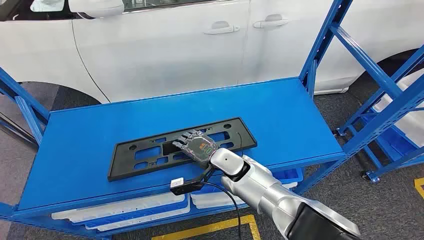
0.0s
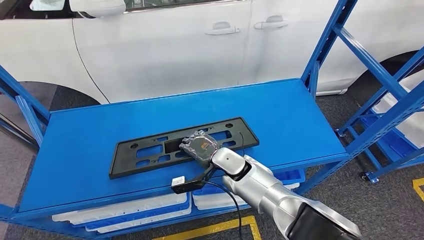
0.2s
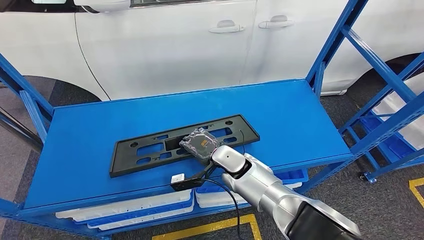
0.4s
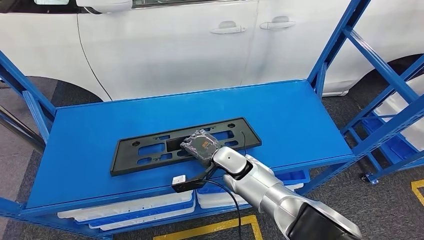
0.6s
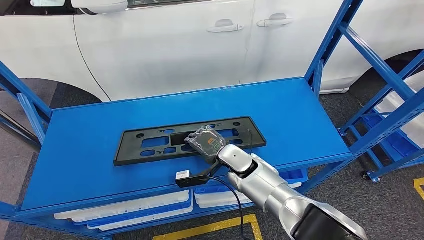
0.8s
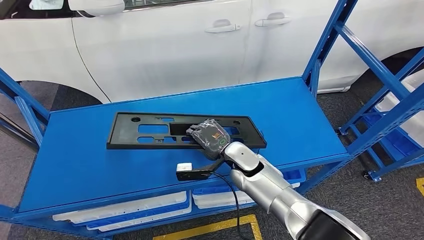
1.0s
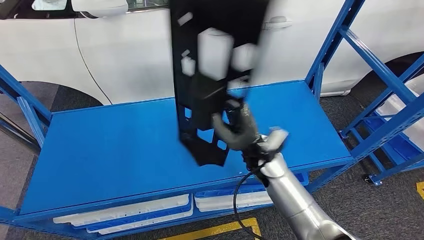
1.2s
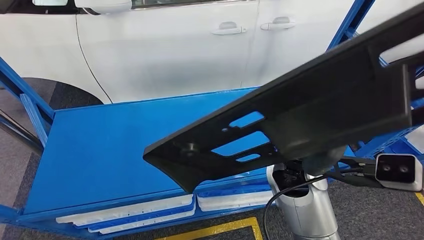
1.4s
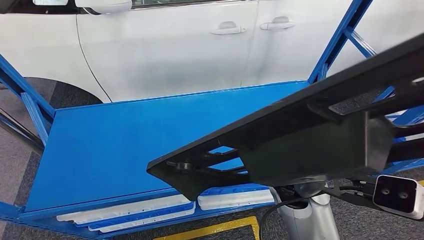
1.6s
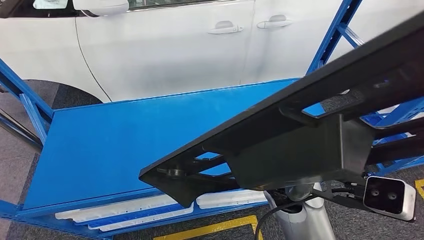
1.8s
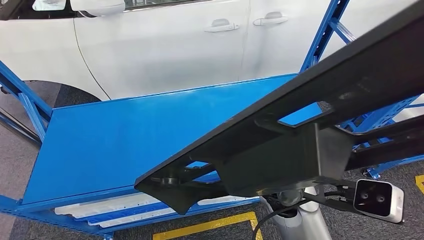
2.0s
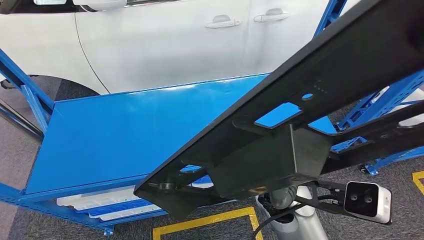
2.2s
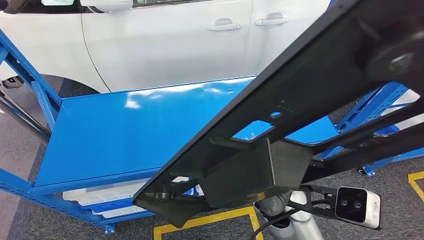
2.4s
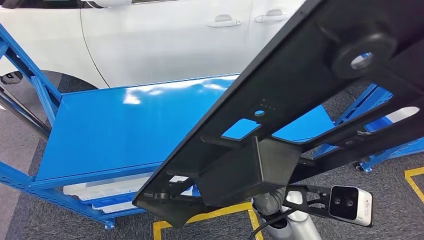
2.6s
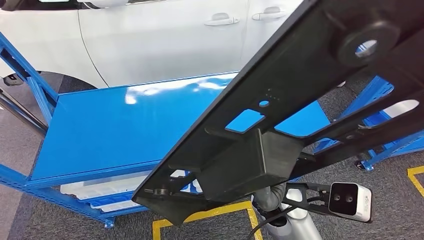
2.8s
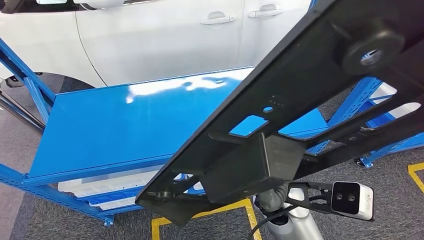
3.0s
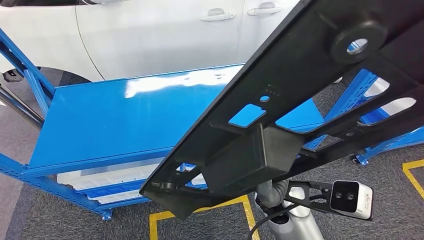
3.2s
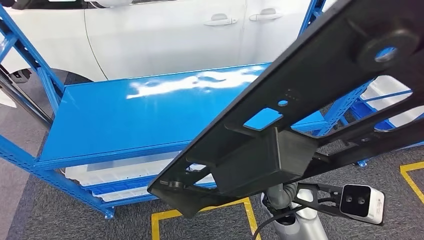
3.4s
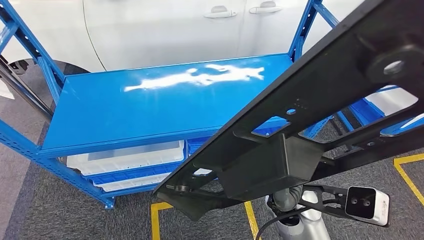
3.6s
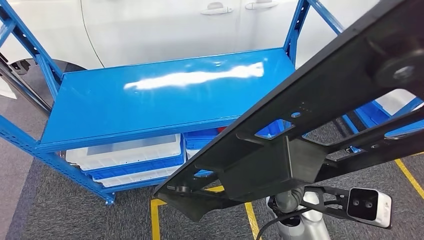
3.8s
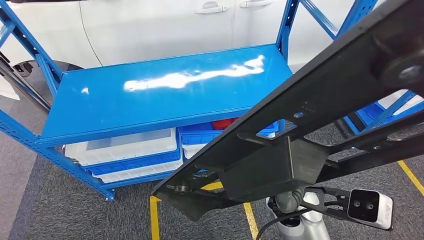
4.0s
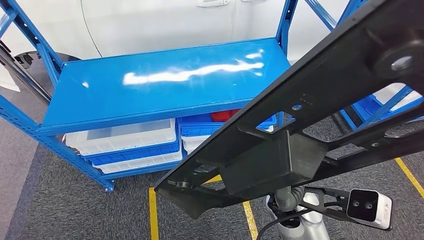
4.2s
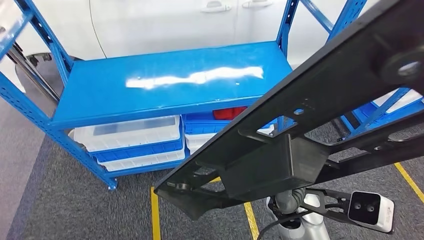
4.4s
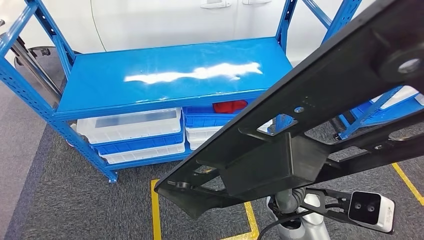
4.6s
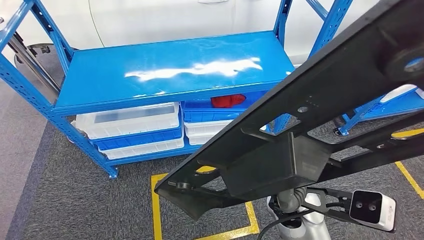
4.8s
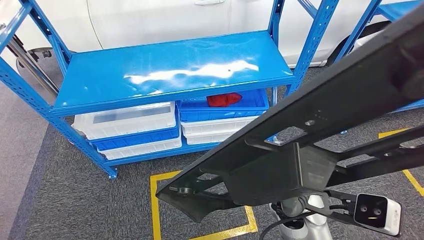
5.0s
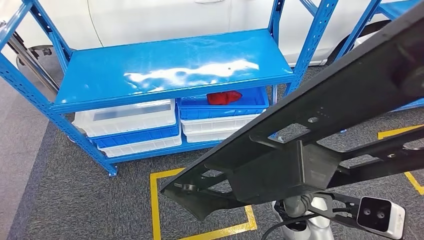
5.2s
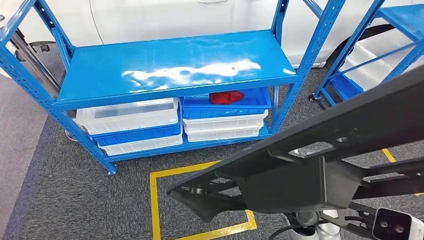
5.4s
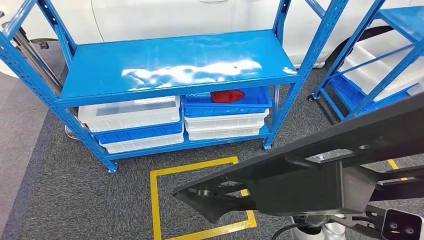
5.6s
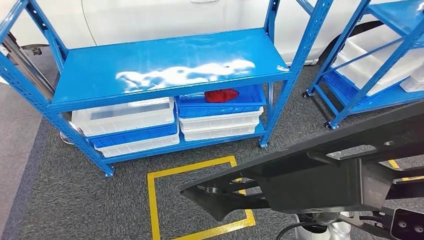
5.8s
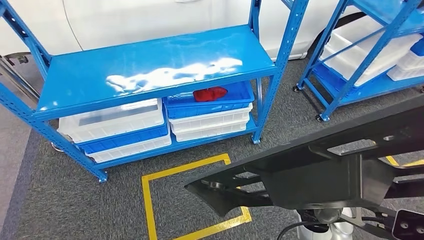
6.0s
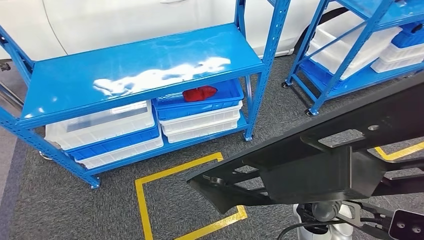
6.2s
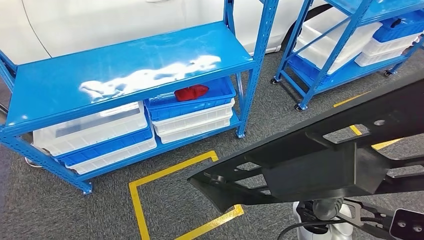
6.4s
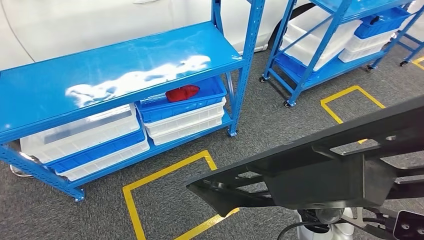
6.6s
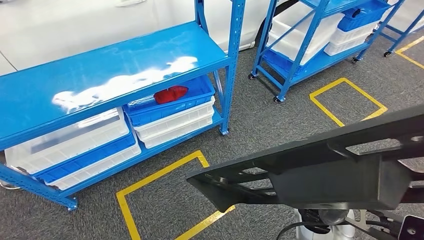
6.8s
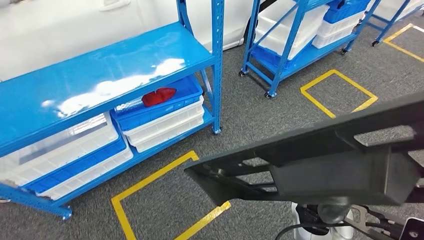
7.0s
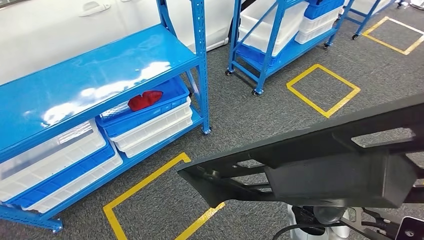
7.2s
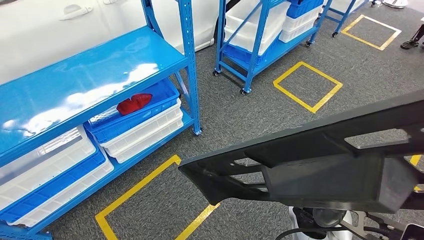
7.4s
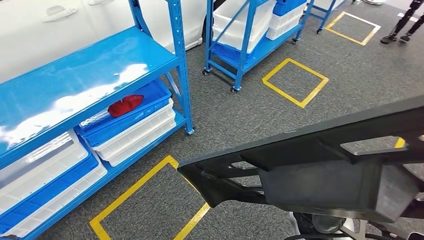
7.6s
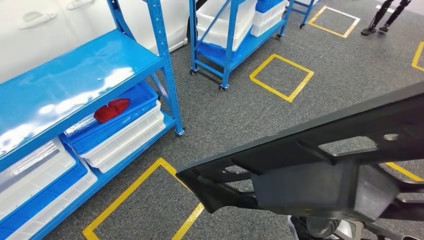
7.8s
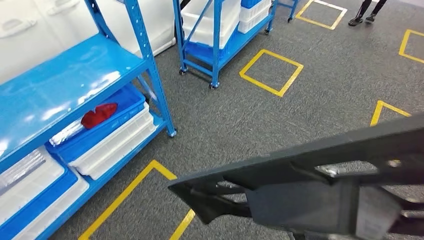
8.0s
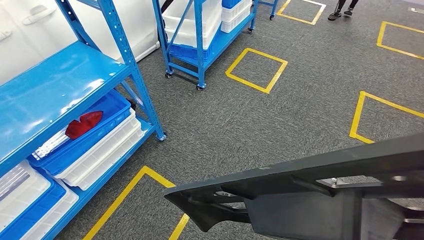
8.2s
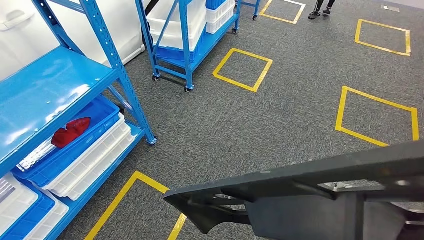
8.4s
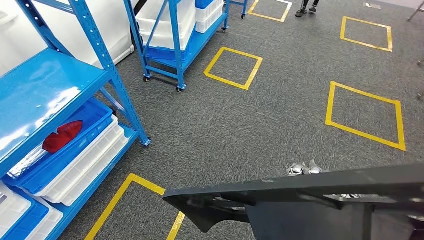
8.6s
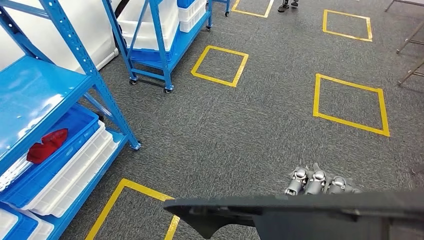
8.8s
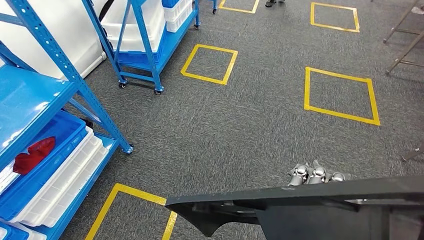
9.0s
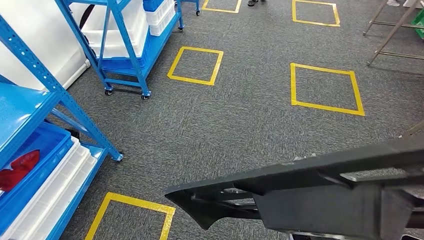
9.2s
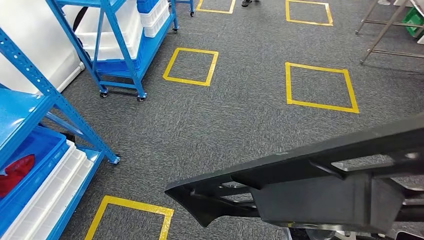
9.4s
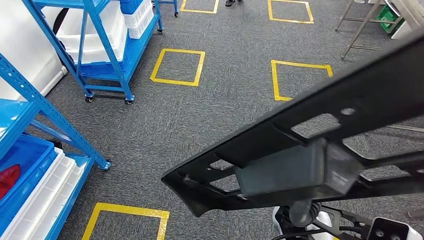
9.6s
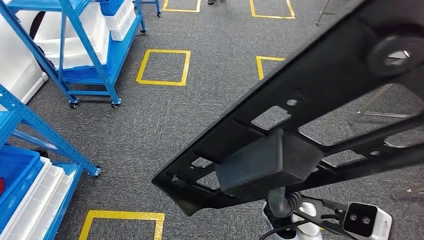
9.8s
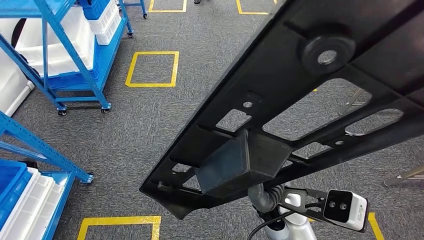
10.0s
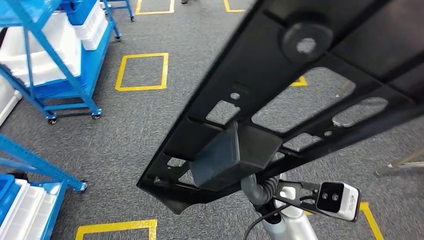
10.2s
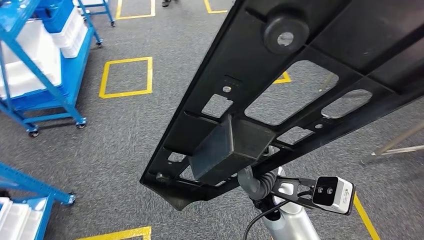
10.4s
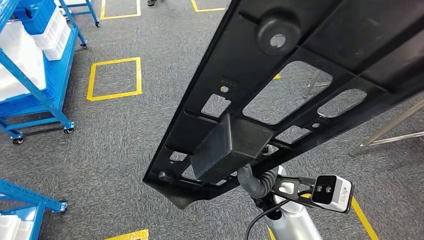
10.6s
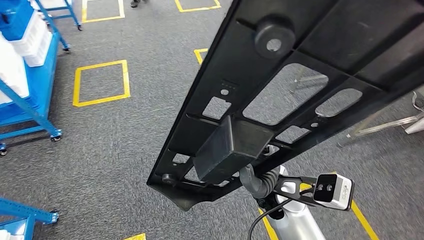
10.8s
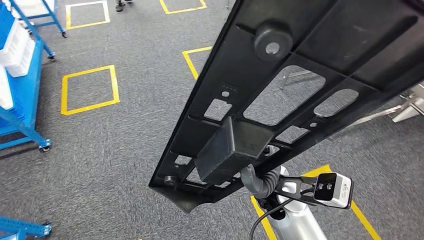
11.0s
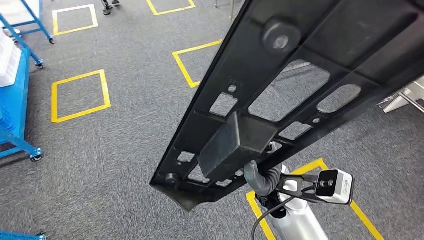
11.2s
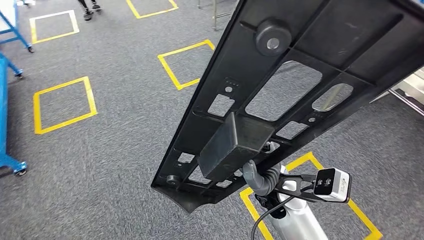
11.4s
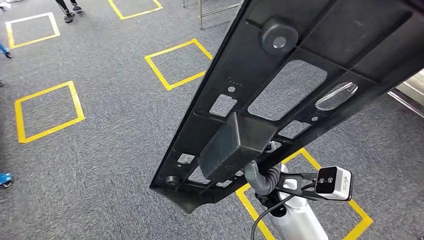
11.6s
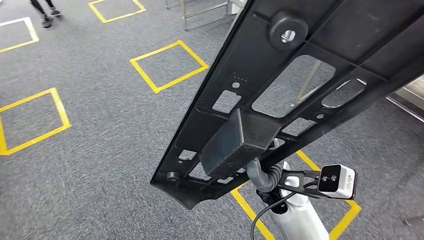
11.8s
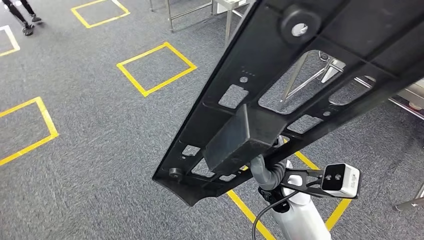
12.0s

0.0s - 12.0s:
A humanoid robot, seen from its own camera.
Step, 0.0s - 3.6s: Pick up the large material from the shelf.

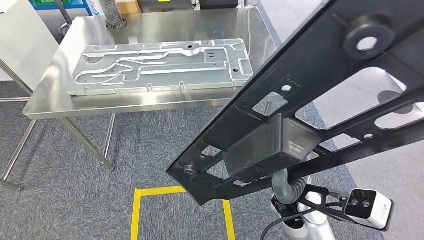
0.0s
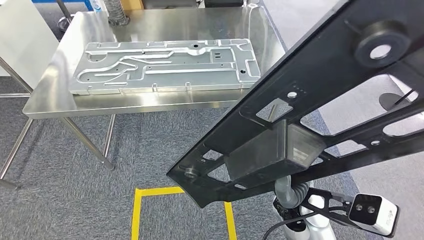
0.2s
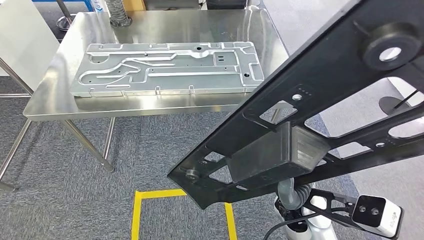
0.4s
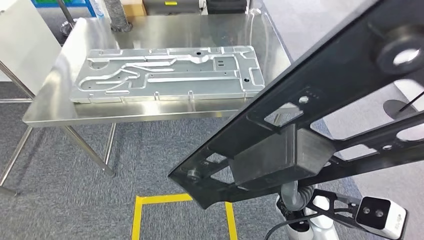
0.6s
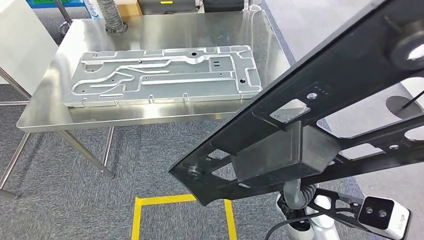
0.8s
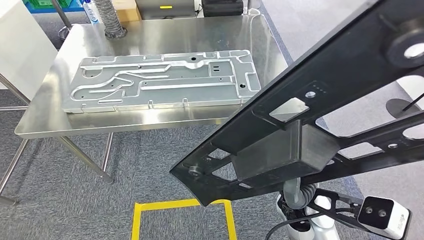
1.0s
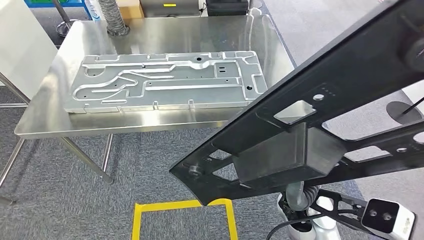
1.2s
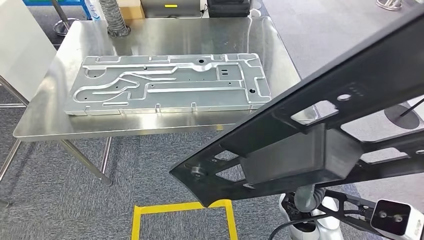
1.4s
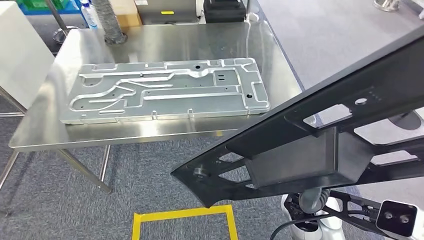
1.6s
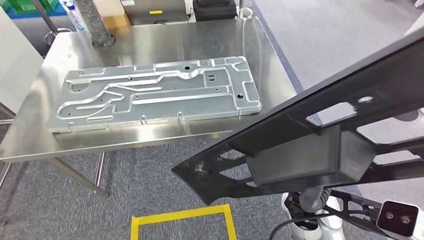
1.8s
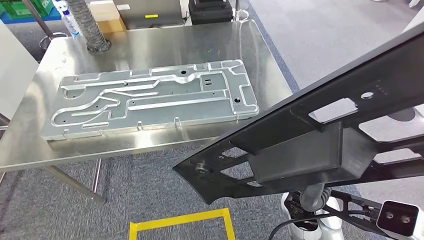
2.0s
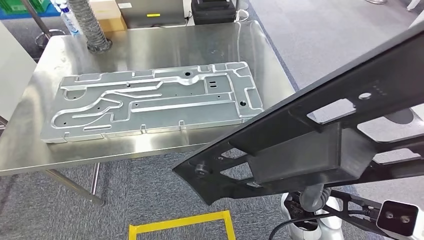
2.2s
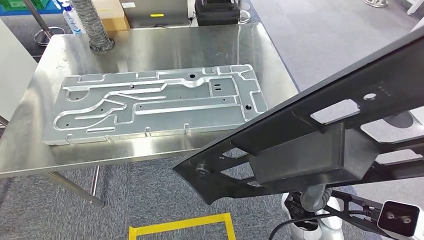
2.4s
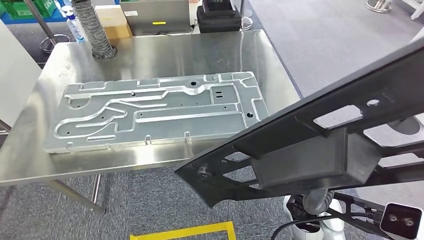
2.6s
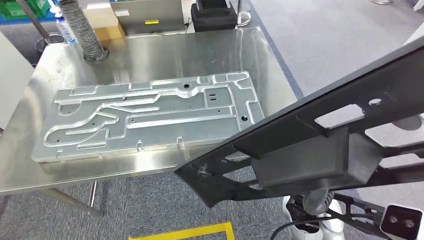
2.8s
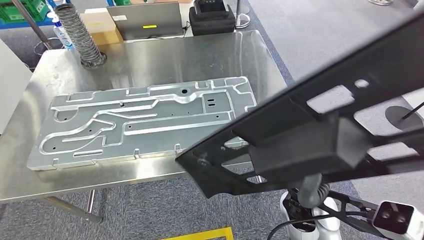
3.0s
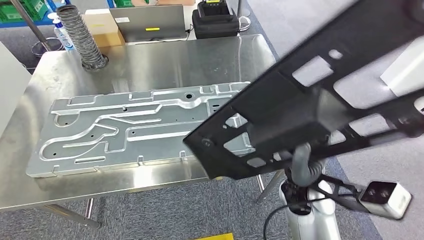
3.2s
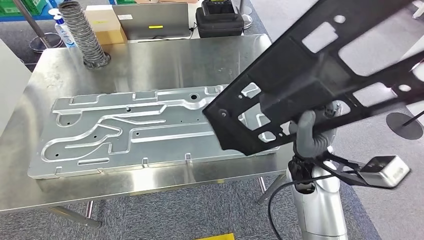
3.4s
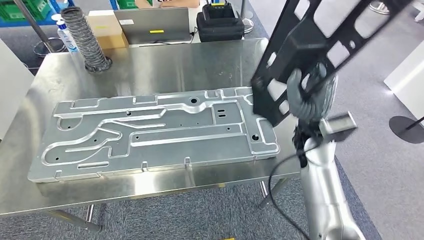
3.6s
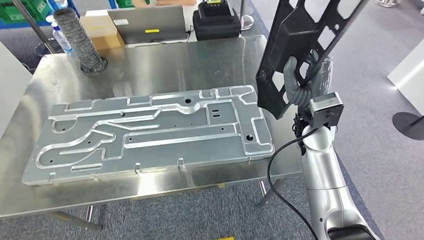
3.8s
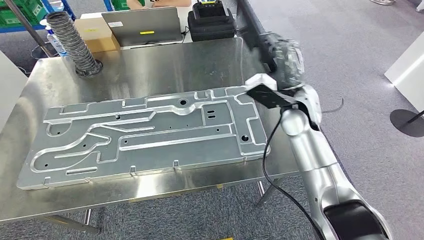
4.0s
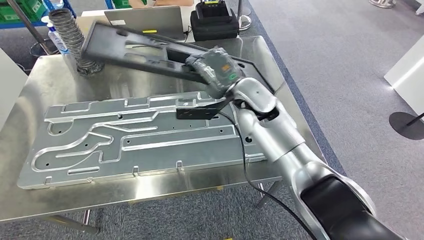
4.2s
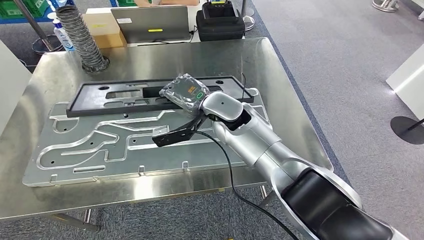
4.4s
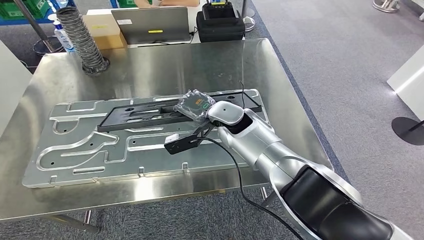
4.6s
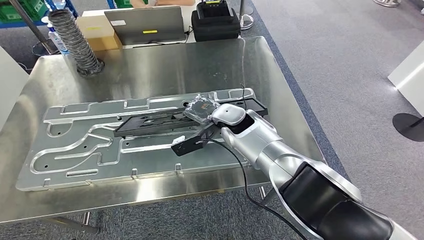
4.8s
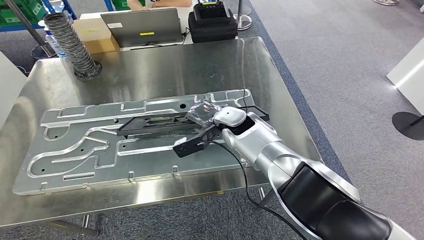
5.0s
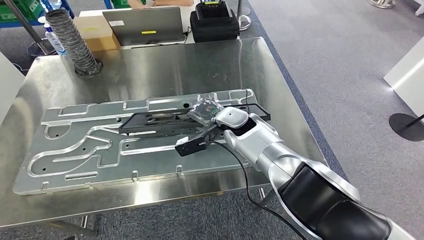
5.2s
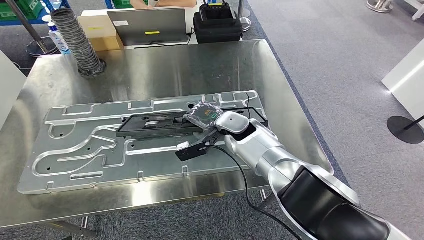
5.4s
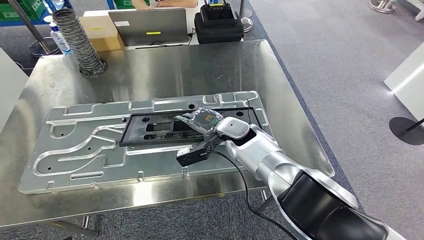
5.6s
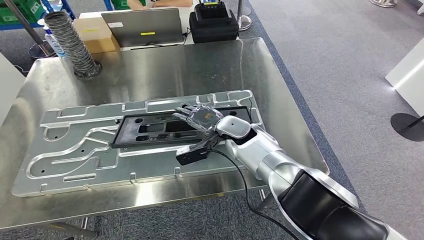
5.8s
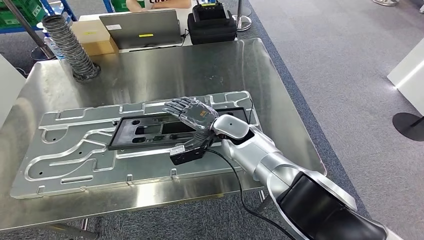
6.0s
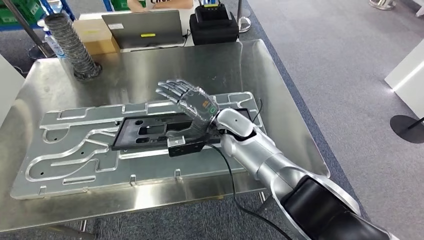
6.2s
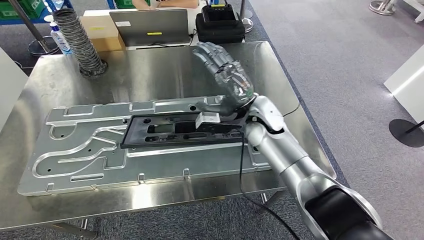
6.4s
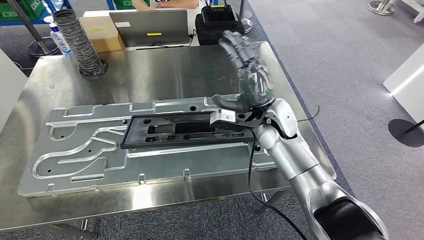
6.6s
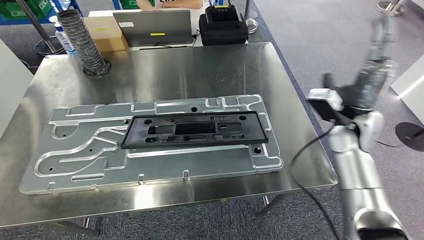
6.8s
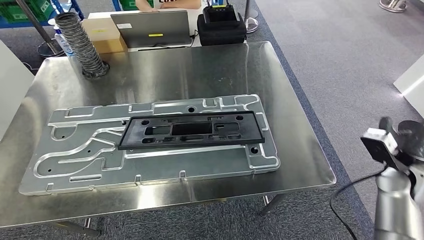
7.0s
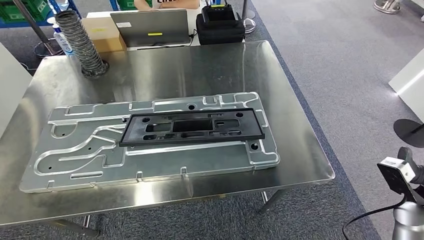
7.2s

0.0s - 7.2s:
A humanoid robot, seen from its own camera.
Step, 0.0s - 3.2s: Move the large material to the workbench.
Step, 3.8s - 6.6s: Insert the large material into the corresponding slot on the workbench.
